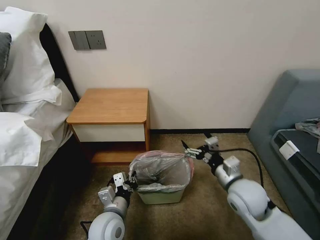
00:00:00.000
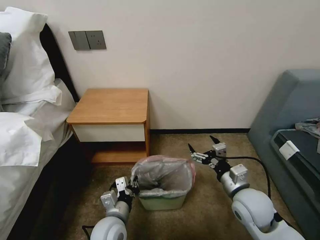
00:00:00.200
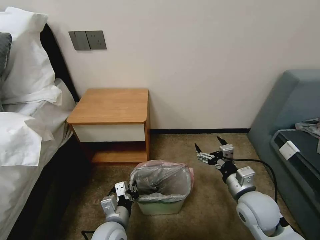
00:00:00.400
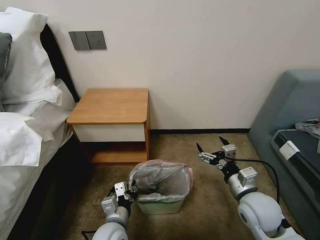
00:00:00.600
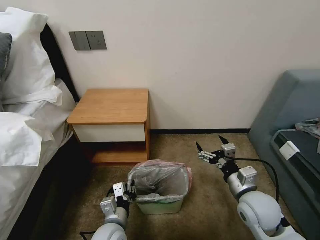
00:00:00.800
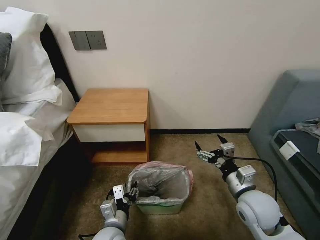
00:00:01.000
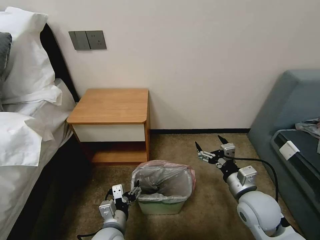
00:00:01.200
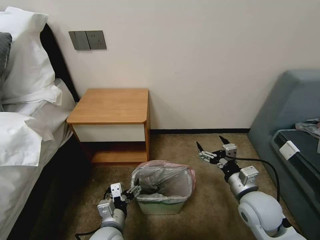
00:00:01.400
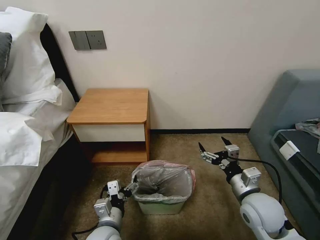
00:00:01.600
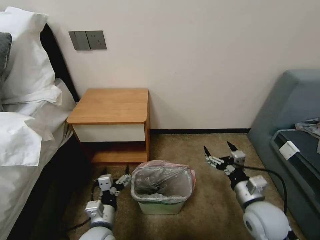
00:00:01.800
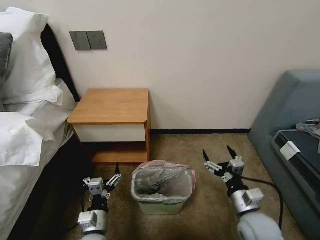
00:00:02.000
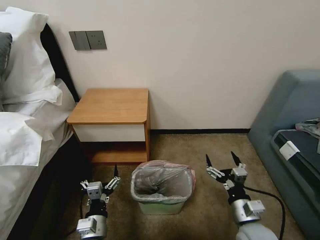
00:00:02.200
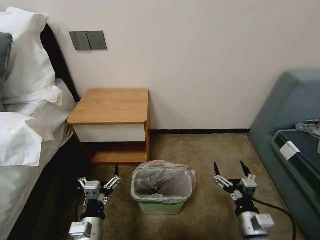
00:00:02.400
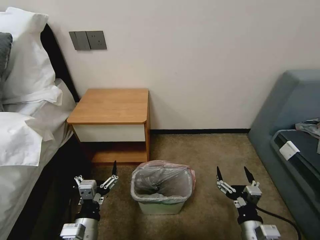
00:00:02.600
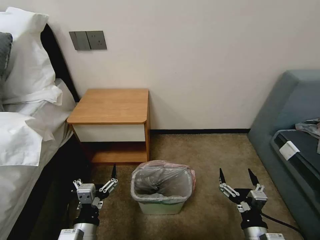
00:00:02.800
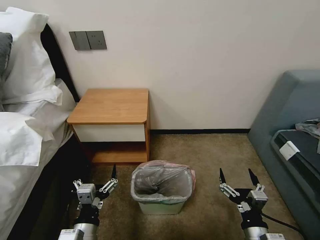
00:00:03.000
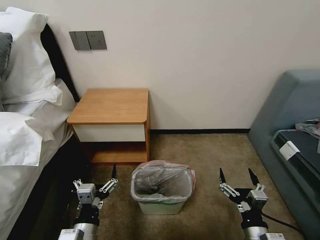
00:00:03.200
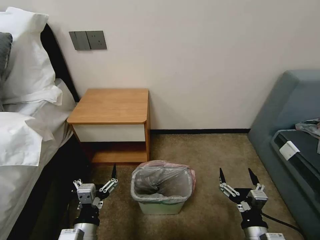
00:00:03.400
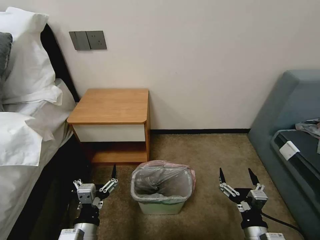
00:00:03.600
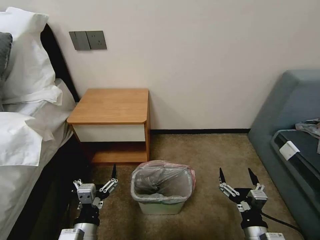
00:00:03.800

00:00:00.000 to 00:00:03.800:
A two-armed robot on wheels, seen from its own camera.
Task of the whole recording: Pick up the garbage bag from the table and place it over the trash can.
00:00:00.000 to 00:00:01.200: The left gripper opens its fingers.
00:00:01.200 to 00:00:02.600: The right gripper heads backward and downward, covering roughly 15 cm, while the left gripper moves to the left, roughly 5 cm.
00:00:02.600 to 00:00:03.800: The grippers stay close to where they were, moving slightly.
